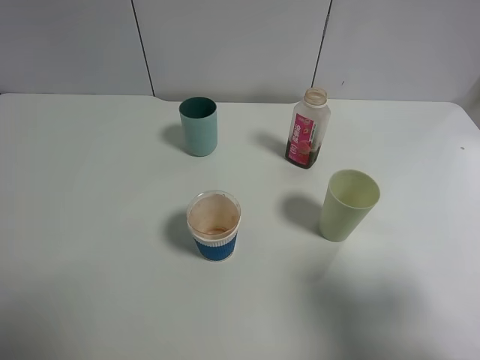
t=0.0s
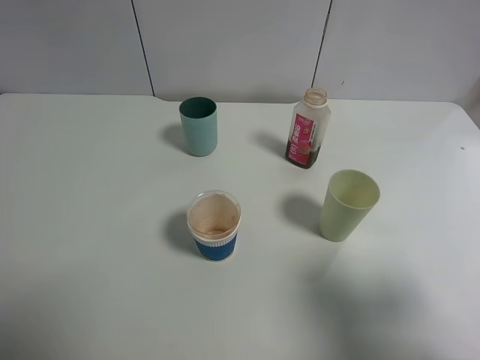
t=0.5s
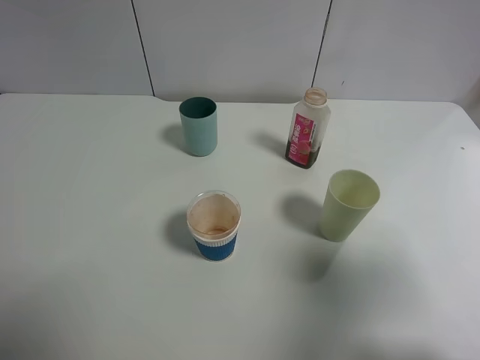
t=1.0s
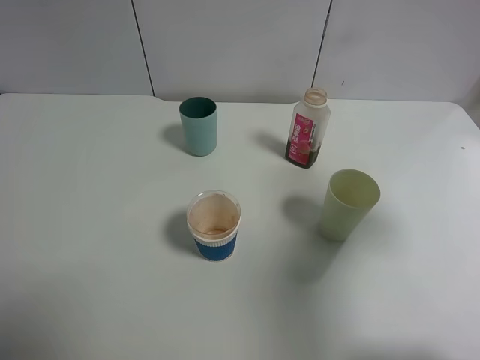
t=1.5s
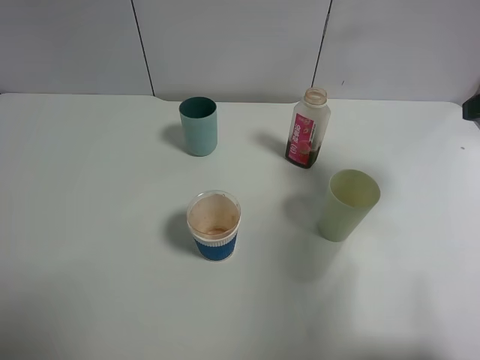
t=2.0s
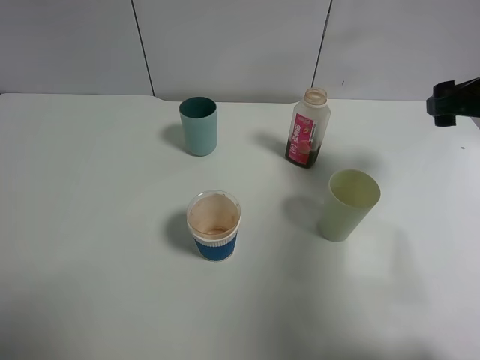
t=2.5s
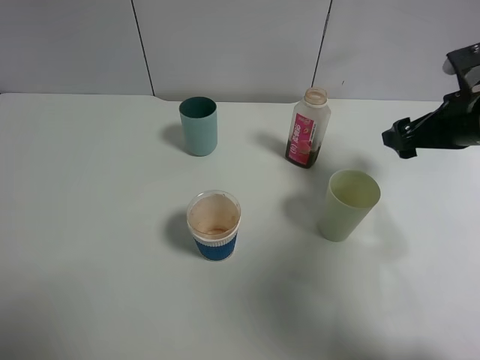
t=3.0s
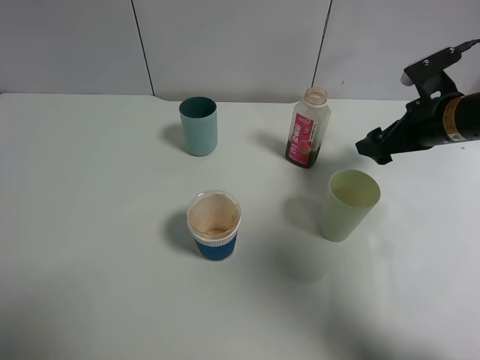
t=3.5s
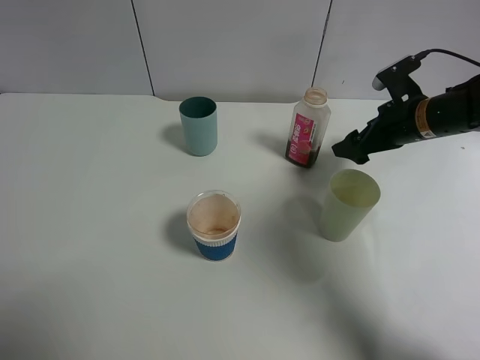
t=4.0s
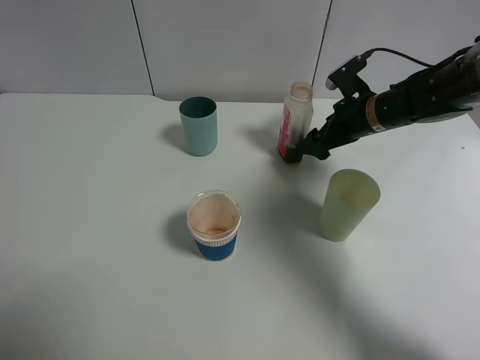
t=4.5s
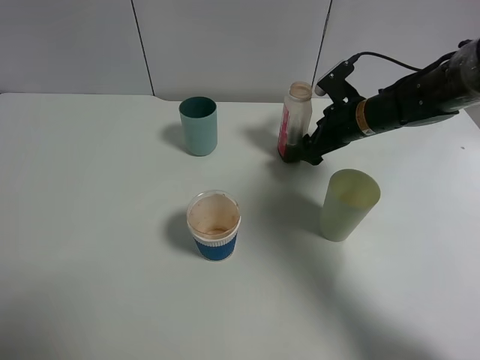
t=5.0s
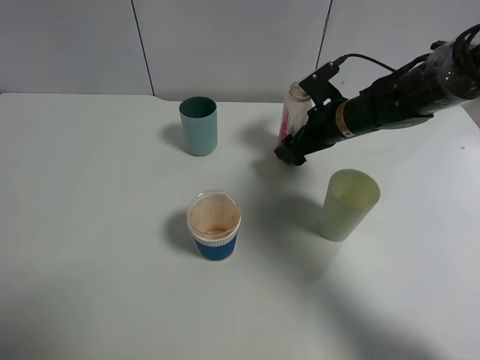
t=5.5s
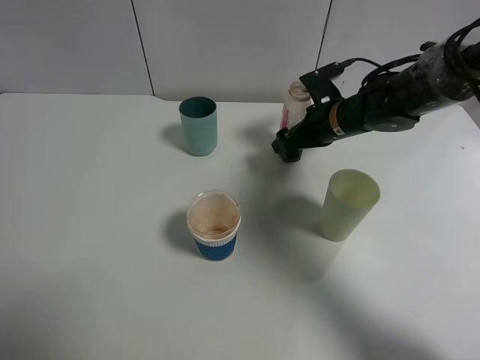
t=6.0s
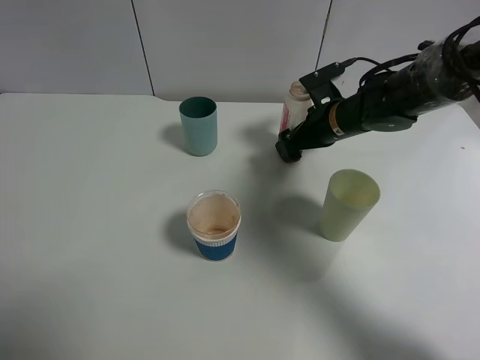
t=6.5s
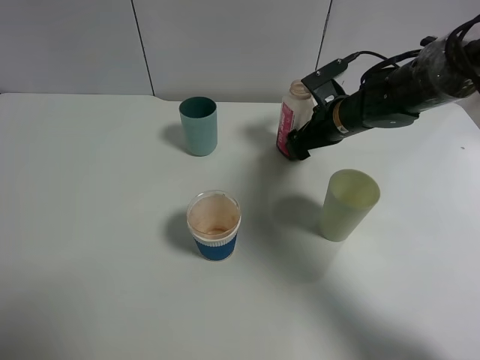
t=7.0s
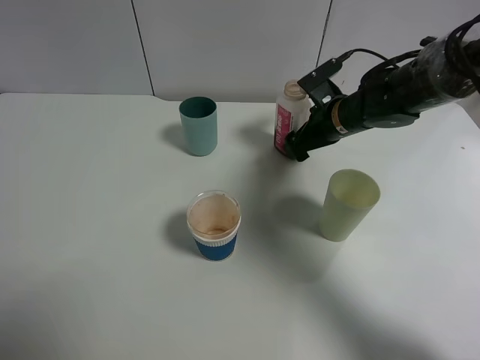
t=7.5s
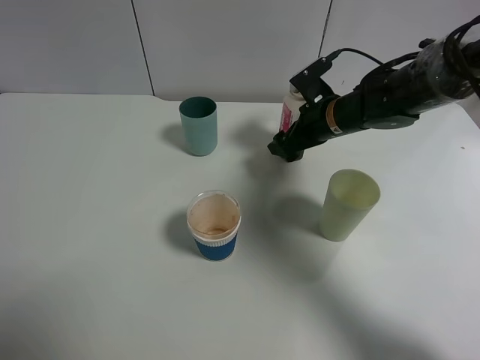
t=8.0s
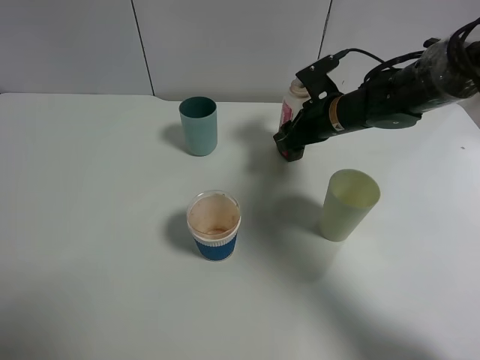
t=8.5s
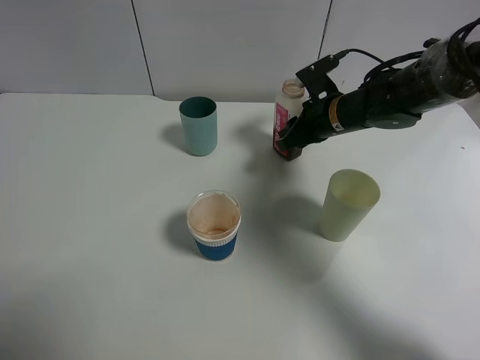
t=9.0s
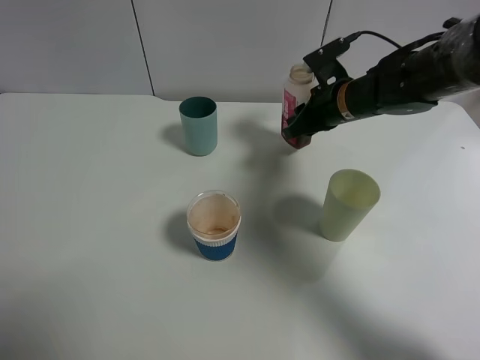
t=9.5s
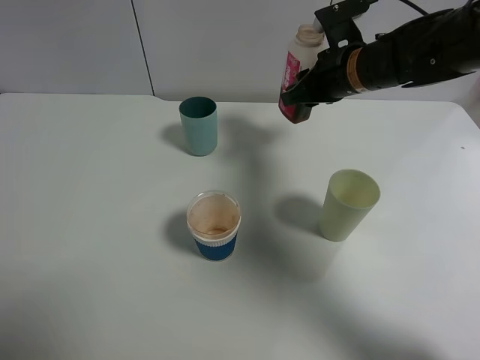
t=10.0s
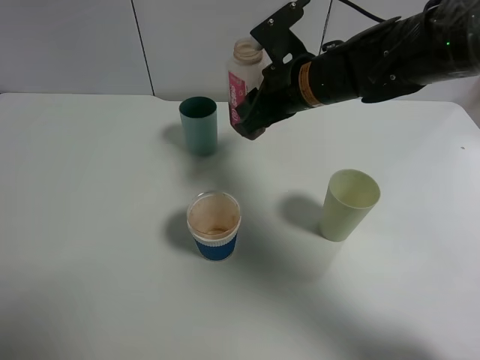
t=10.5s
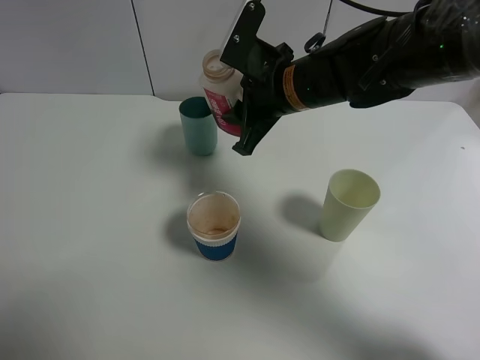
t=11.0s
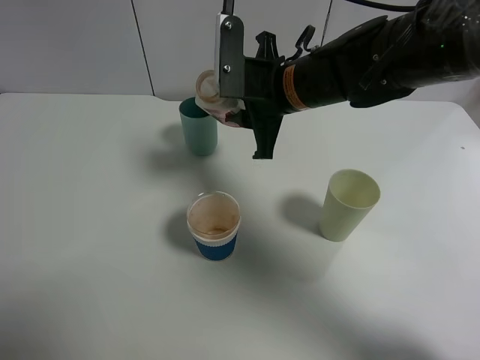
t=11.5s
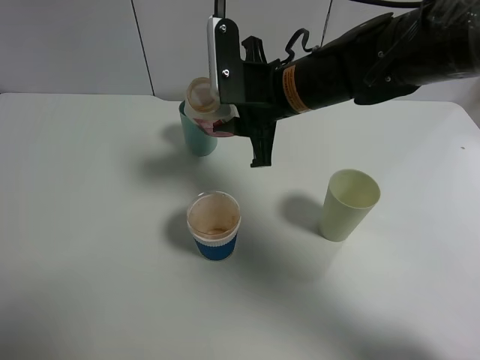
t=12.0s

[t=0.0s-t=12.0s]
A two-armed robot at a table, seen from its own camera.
Task of the whole recording: use a gripper to hold the bottle of the drink and pour it into a random cup.
Step, t=0.0s to t=9.0s: Grasp the cranberry juice bottle with the right gripper.
t=0.0s to t=2.0s: The right gripper moves forward, some 20 cm.
t=2.0s to t=4.0s: The right gripper shifts roughly 20 cm downward and forward.
t=4.0s to t=6.0s: The right gripper goes about 10 cm to the left.
t=6.0s to t=8.0s: The grippers stay close to where they were, moving slightly.
t=8.0s to t=10.0s: The right gripper goes about 10 cm upward, and closes.
t=10.0s to t=12.0s: The right gripper heads to the left and backward, covering roughly 10 cm.

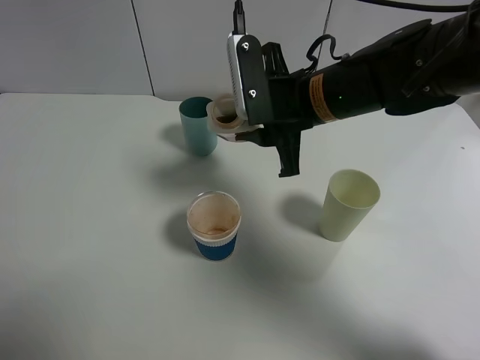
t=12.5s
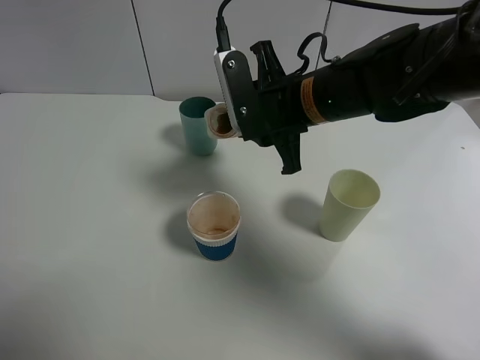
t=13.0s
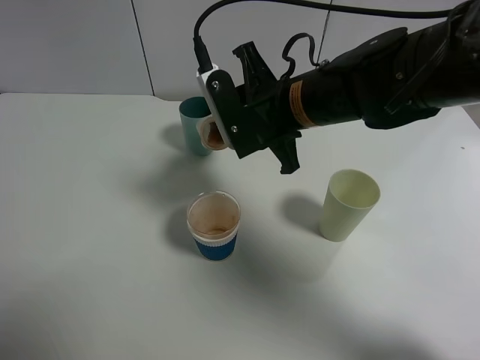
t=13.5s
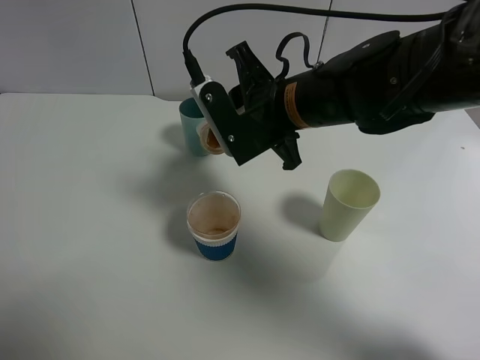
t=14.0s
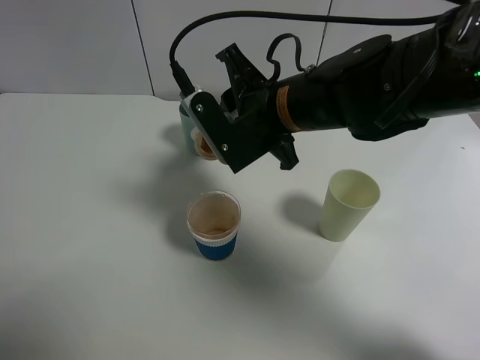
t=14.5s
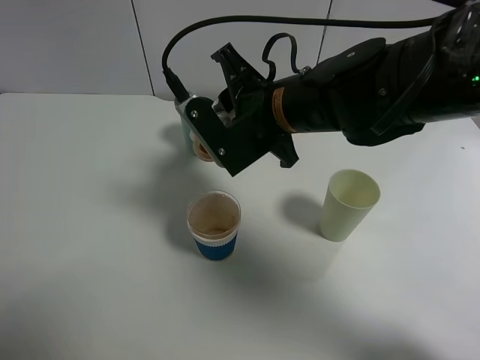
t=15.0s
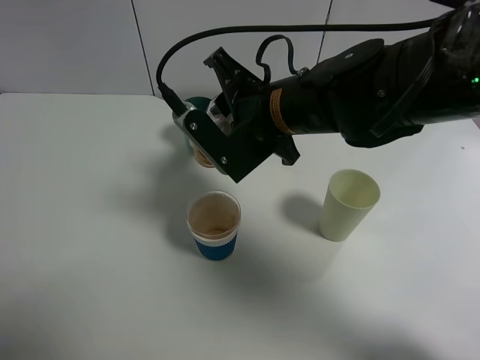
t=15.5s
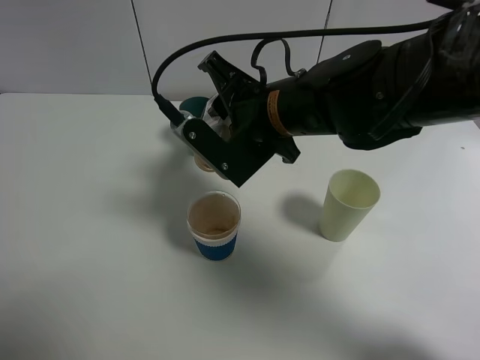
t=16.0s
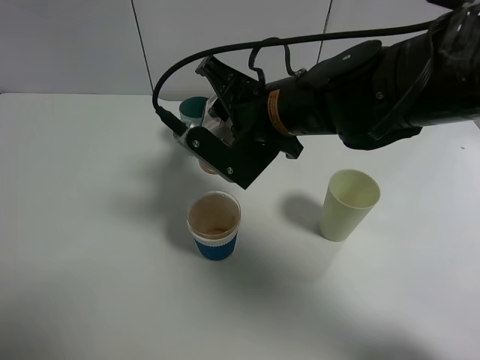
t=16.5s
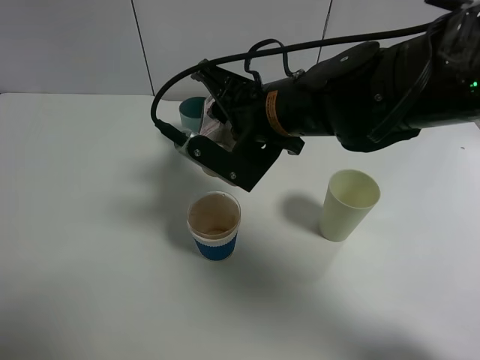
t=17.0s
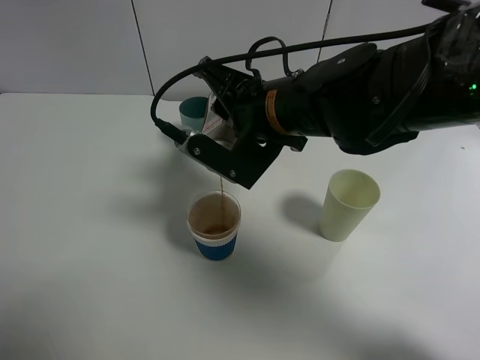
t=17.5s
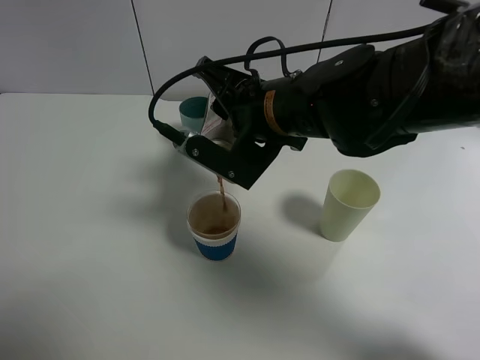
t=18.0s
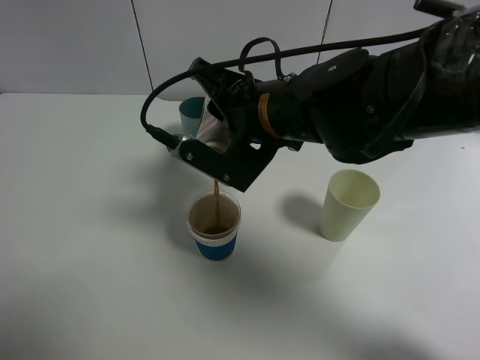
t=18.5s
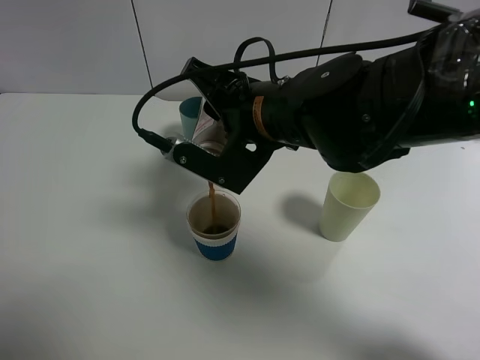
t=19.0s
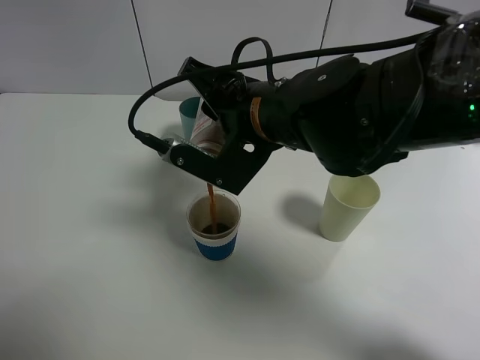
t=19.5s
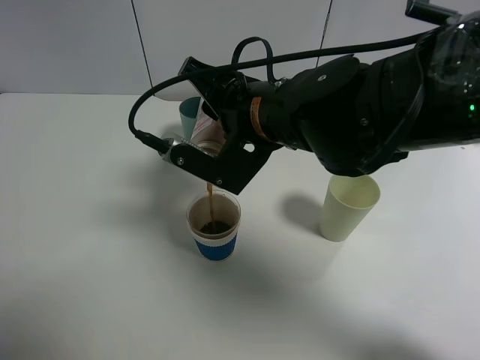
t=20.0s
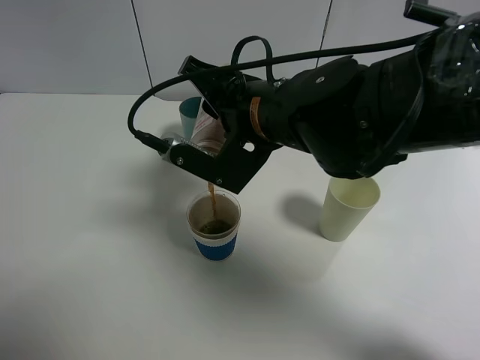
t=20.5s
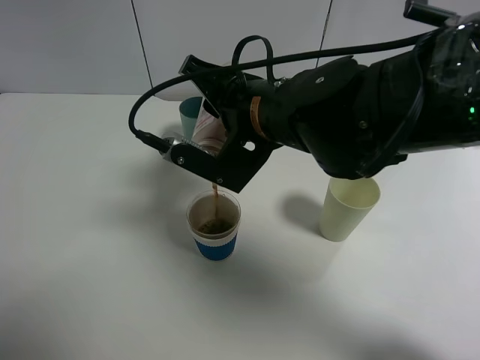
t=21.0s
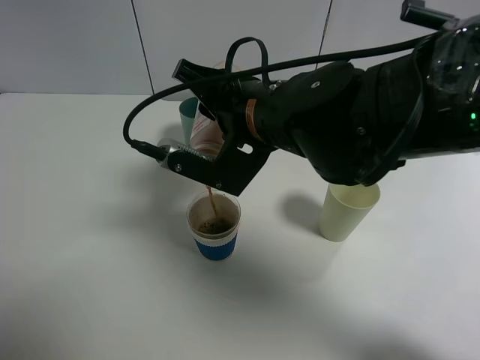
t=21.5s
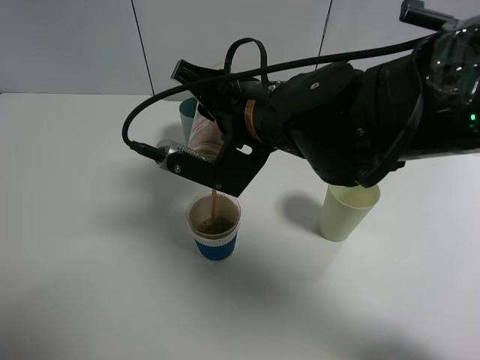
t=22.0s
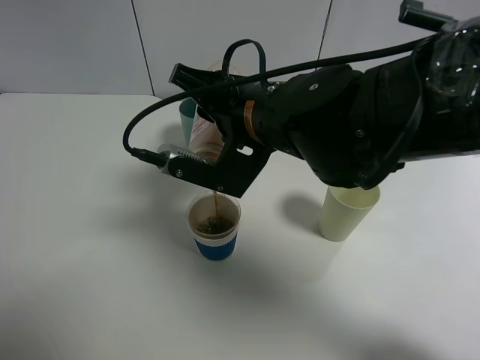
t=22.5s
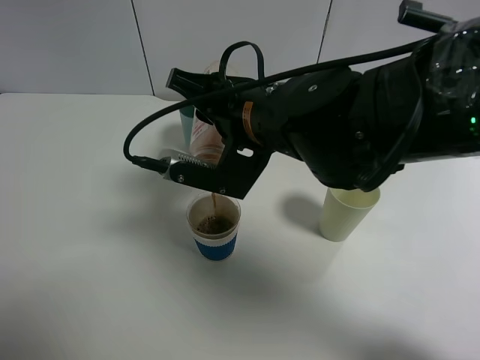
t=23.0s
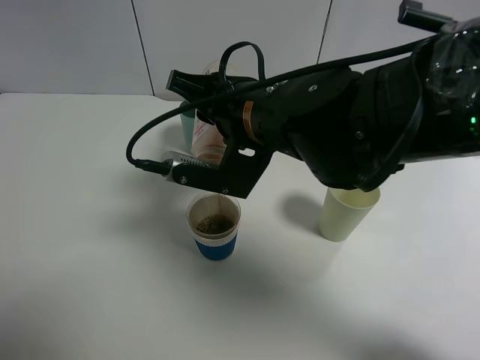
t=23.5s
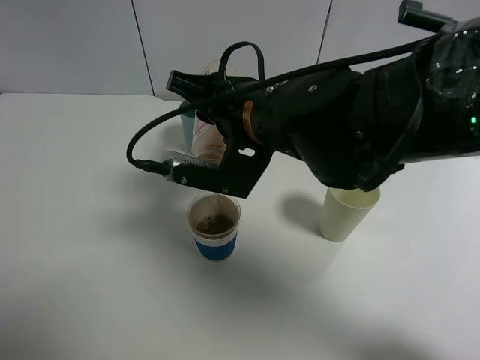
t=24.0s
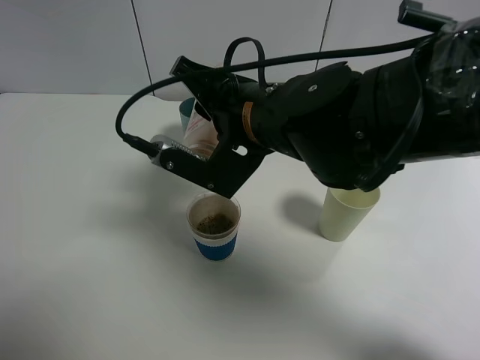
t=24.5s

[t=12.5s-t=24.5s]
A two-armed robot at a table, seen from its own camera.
Task of the whole recording: use a gripper to hold the bottle of the drink and pour it into a random cup.
t=14.5s to t=16.5s: There are only small adjustments of the grippers.
t=16.5s to t=18.5s: The grippers make only small movements.
t=18.5s to t=20.5s: The two grippers keep their place.
t=20.5s to t=24.5s: The grippers move only a little.

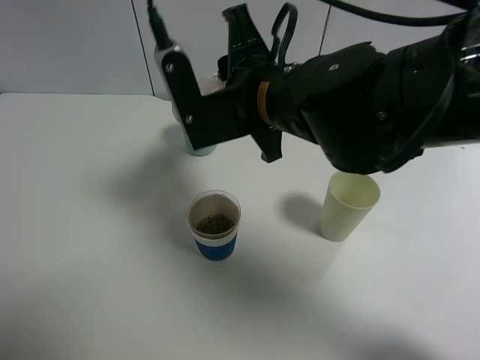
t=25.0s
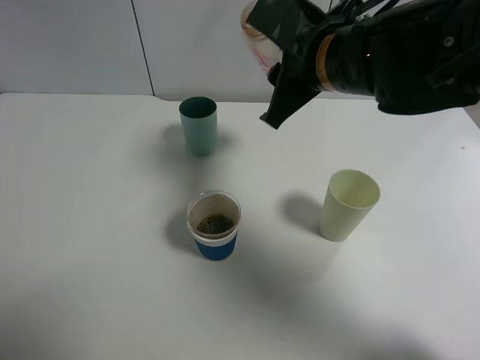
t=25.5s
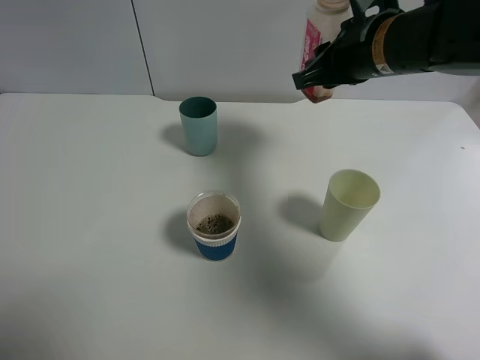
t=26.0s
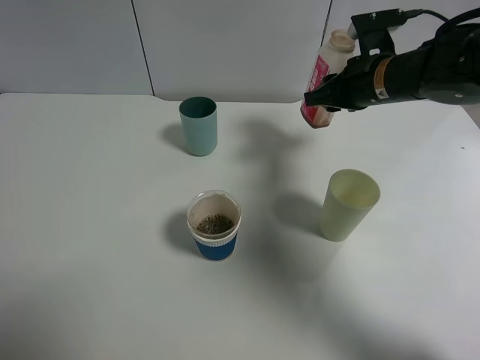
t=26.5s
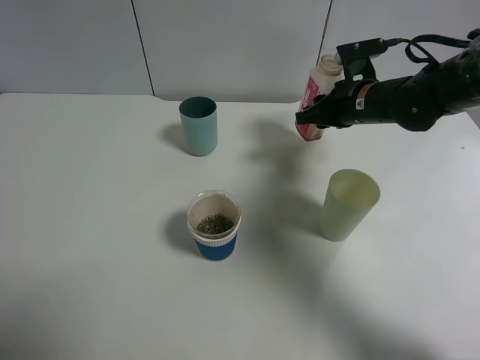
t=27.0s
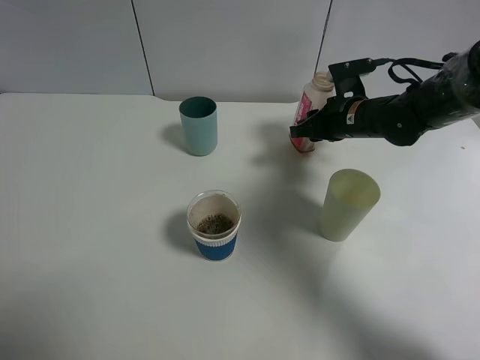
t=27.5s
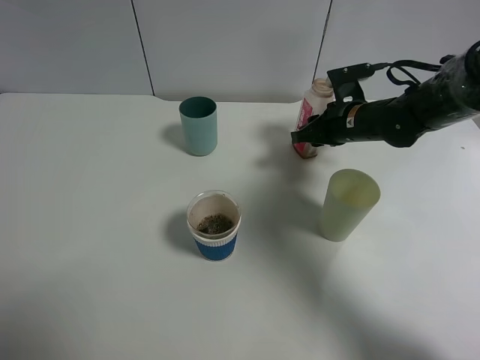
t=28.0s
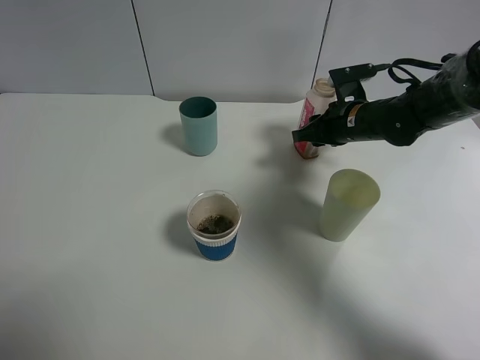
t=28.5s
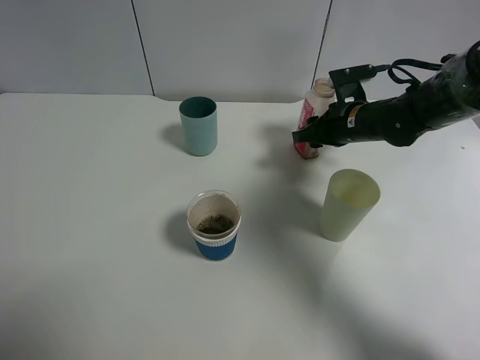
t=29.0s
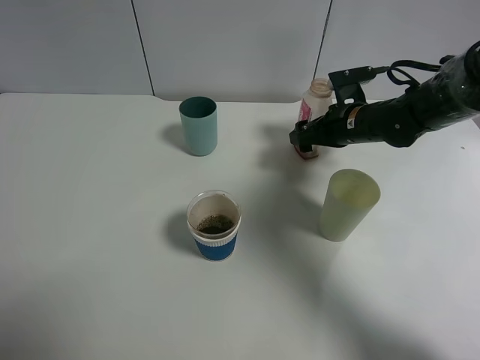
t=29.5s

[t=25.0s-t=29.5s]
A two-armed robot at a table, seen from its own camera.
Task of the whole recording: use a gripper to hold the bottle of the drink and pour it into a random cup.
t=25.0s to t=27.0s: The right gripper shifts approximately 20 cm to the right, forward and downward.
t=27.0s to t=29.5s: The right gripper opens up.
